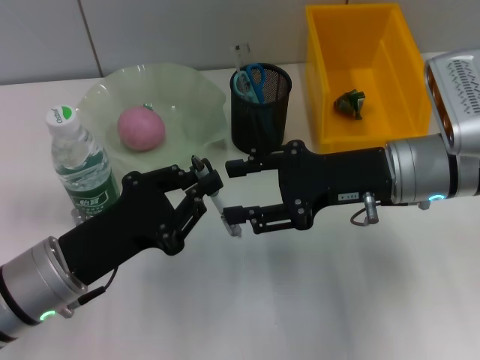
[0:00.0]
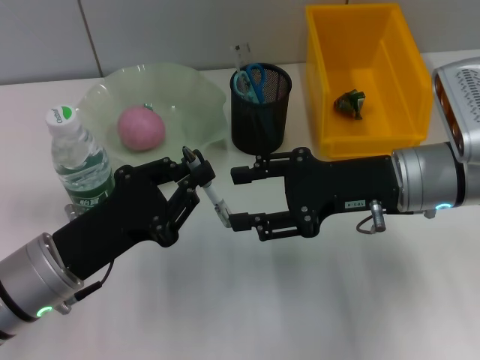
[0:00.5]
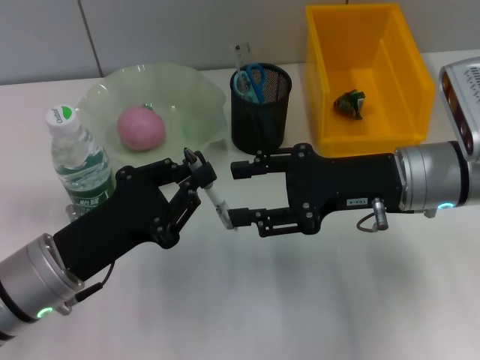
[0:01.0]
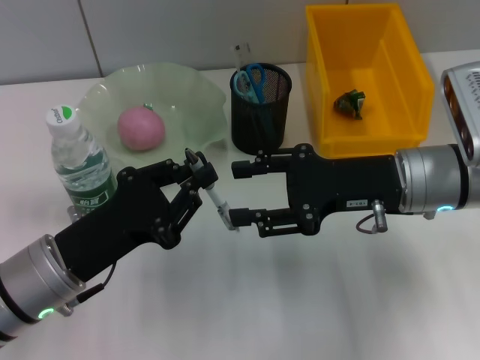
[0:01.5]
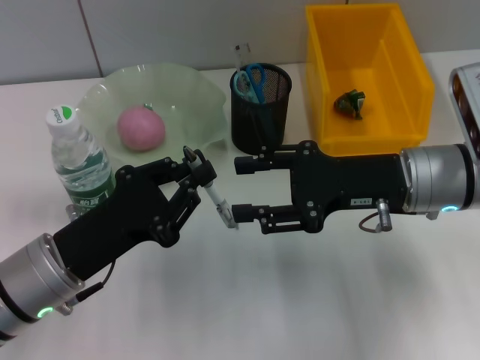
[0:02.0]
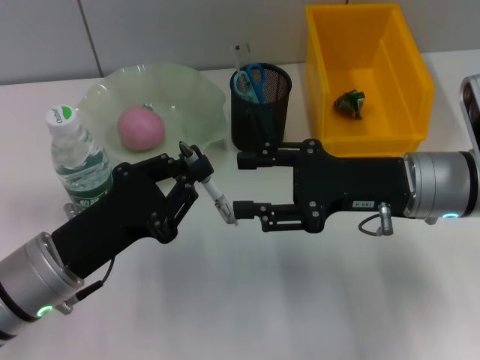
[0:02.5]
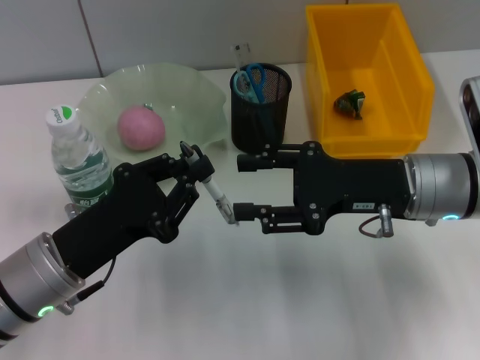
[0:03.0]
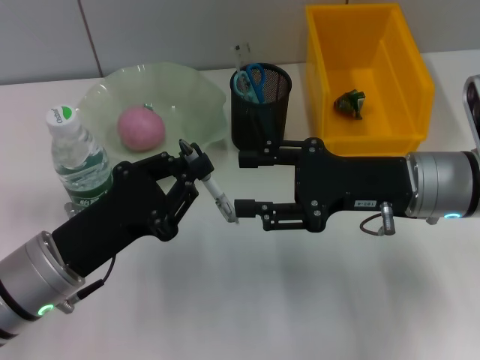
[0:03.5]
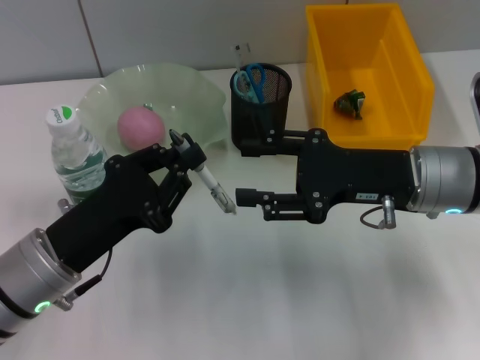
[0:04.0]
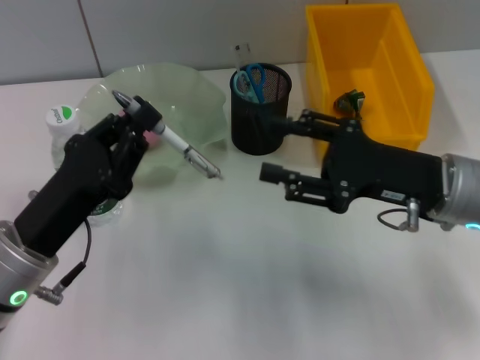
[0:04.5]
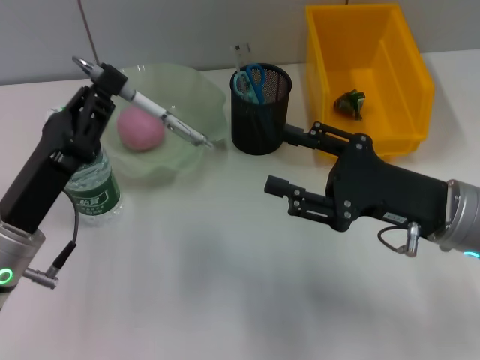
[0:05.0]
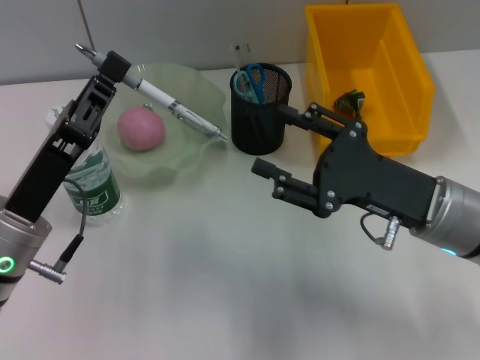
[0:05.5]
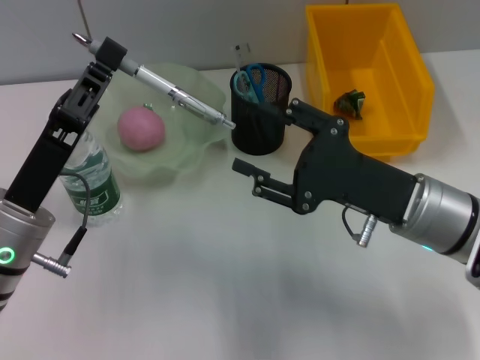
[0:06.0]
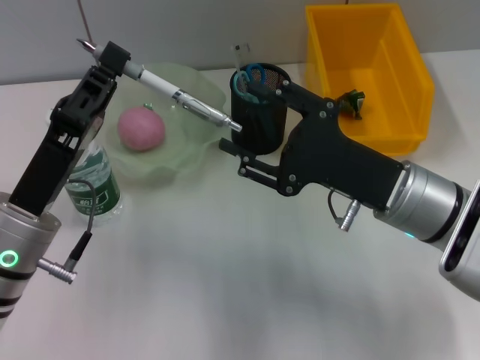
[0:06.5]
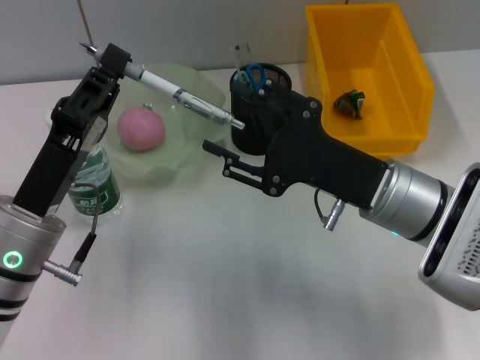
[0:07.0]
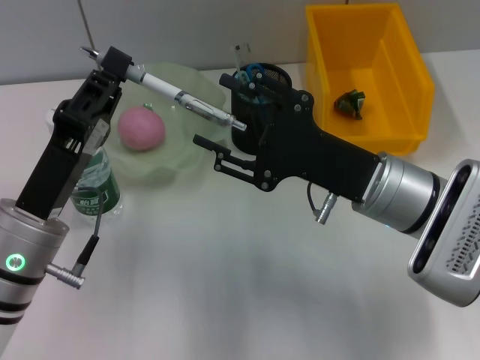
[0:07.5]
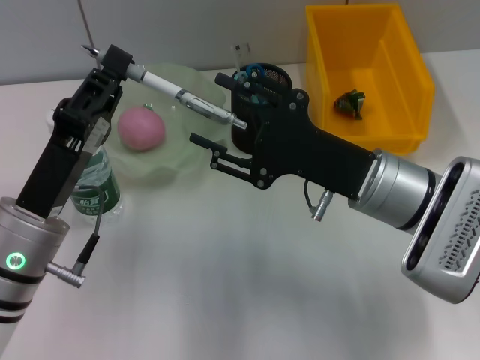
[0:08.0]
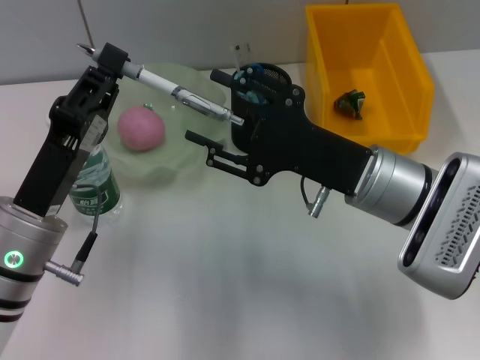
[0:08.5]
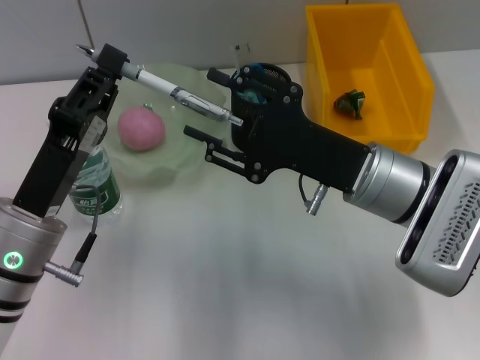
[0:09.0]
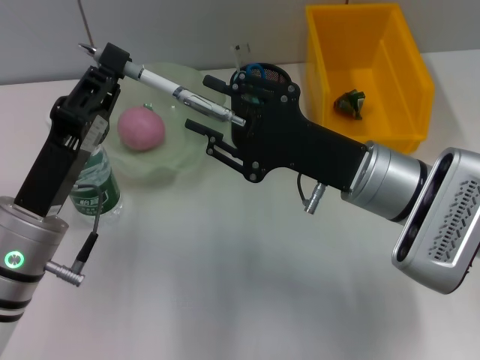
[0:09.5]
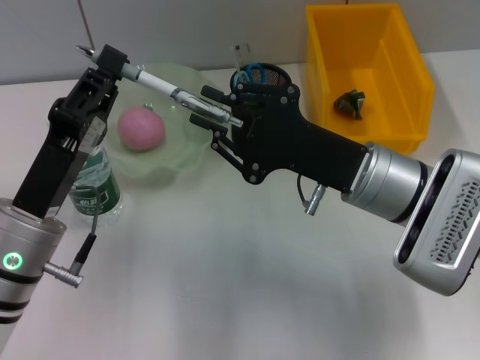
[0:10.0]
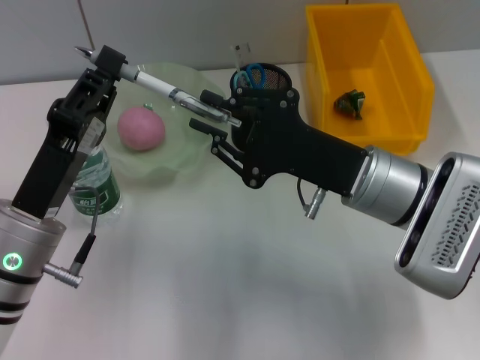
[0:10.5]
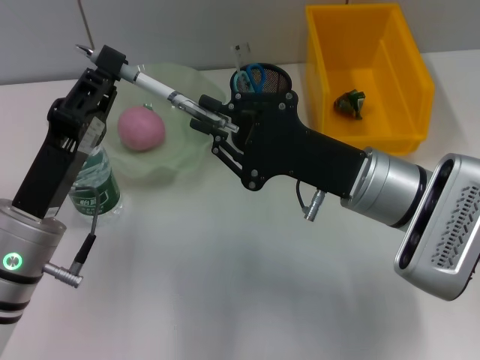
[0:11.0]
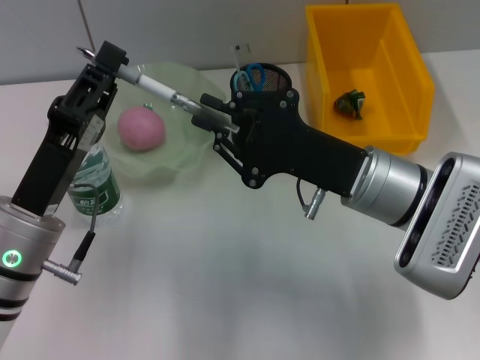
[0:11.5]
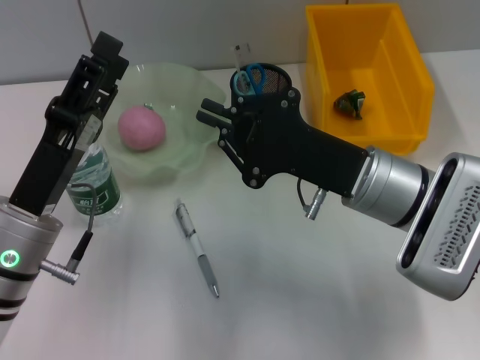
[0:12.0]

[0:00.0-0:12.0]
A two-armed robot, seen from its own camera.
0:00.0 to 0:04.0: The grippers make only small movements.
0:08.0 to 0:10.0: The right gripper closes.
0:10.0 to 0:12.0: The left gripper opens its fingers.

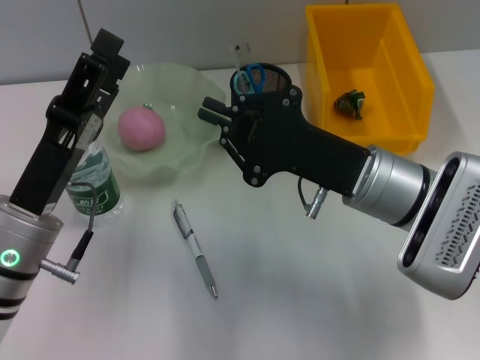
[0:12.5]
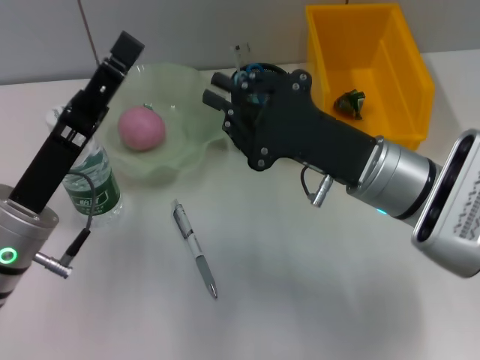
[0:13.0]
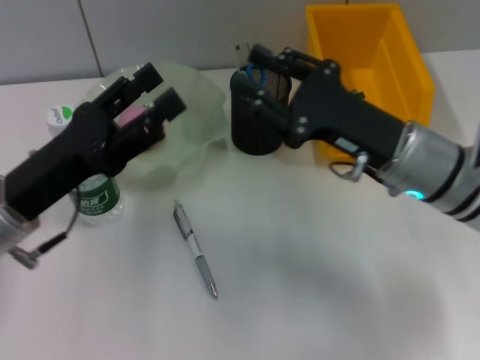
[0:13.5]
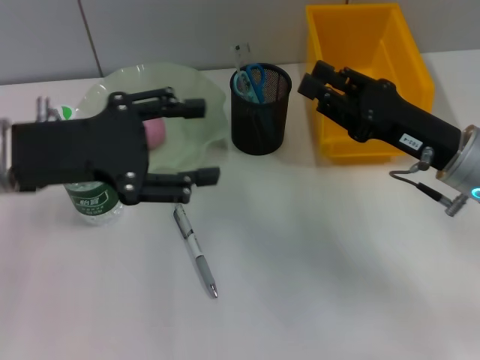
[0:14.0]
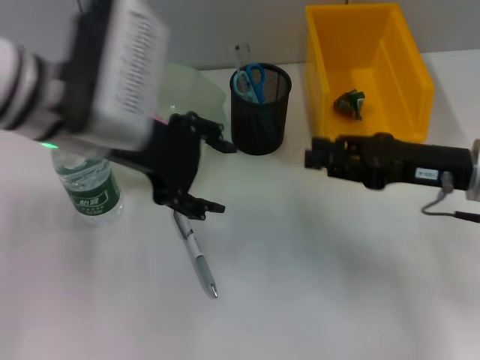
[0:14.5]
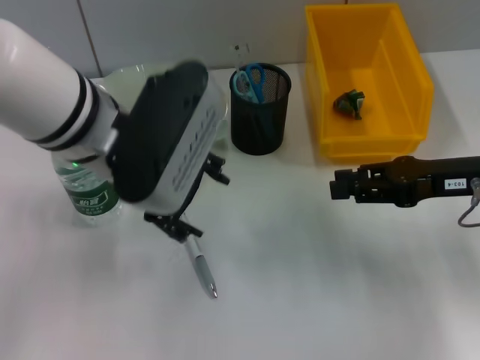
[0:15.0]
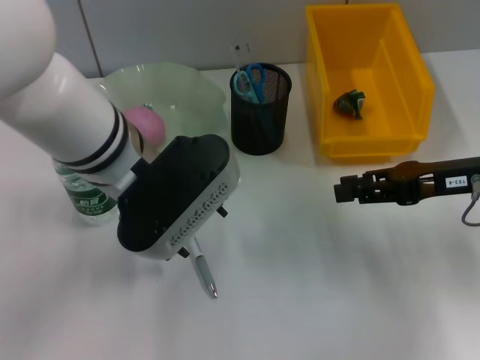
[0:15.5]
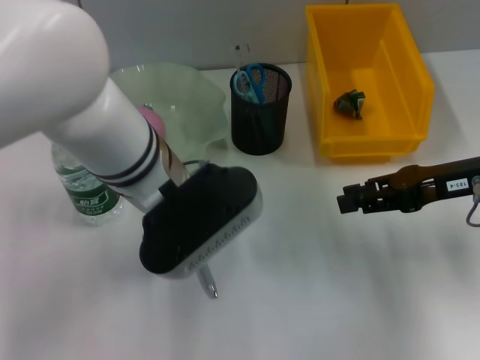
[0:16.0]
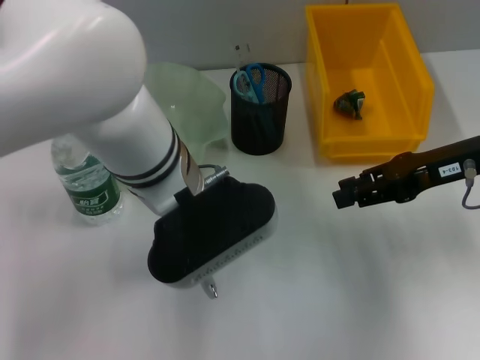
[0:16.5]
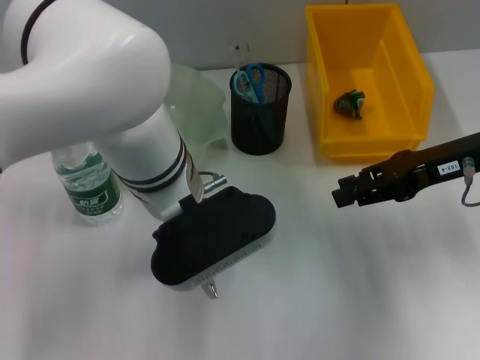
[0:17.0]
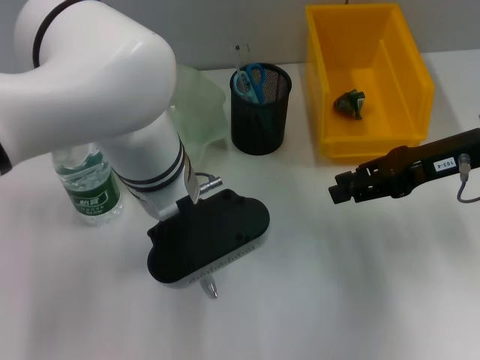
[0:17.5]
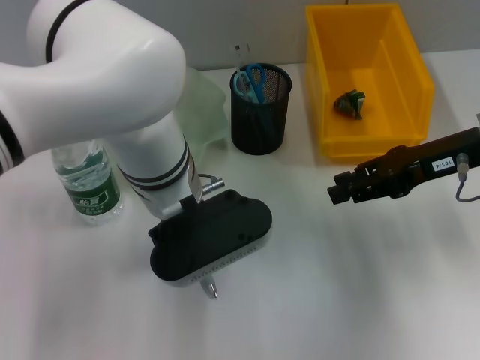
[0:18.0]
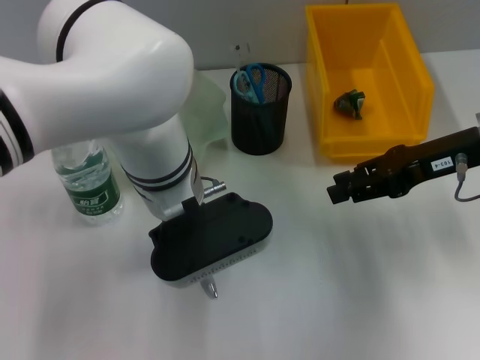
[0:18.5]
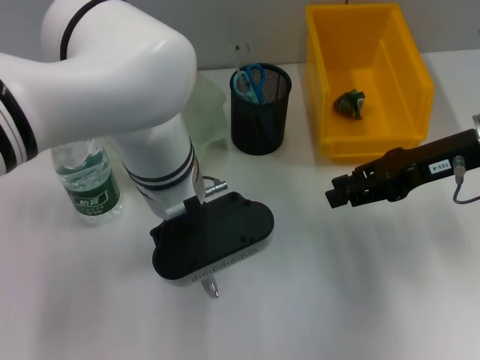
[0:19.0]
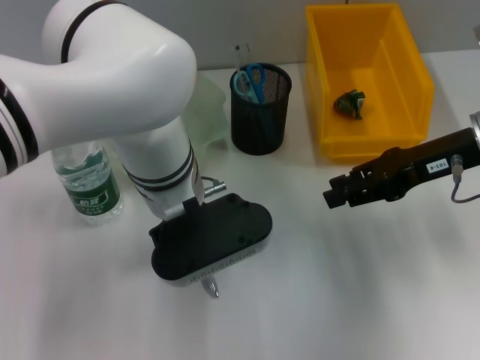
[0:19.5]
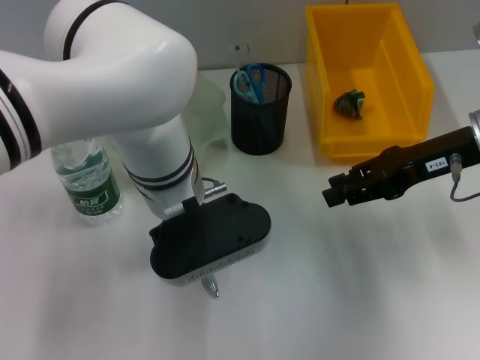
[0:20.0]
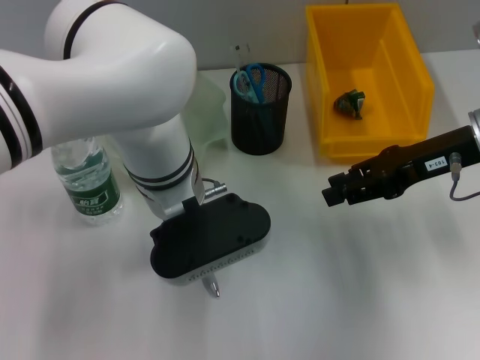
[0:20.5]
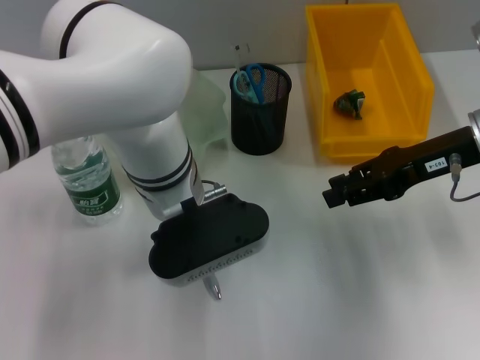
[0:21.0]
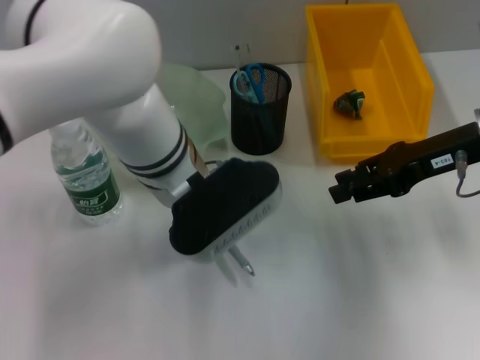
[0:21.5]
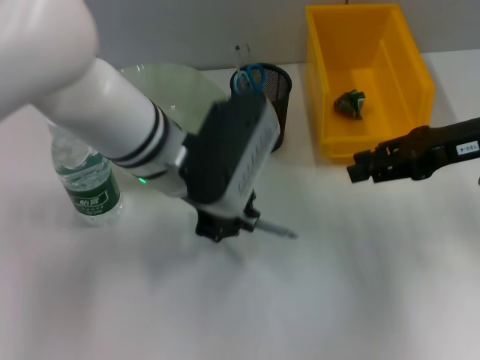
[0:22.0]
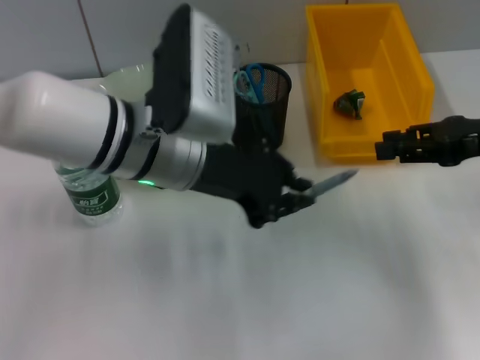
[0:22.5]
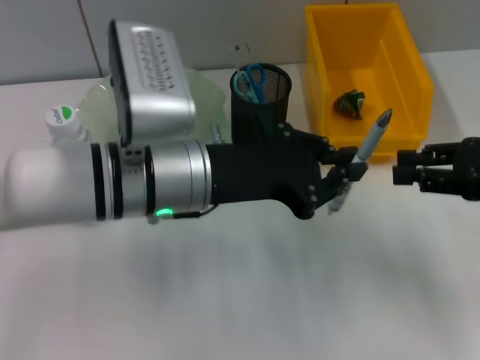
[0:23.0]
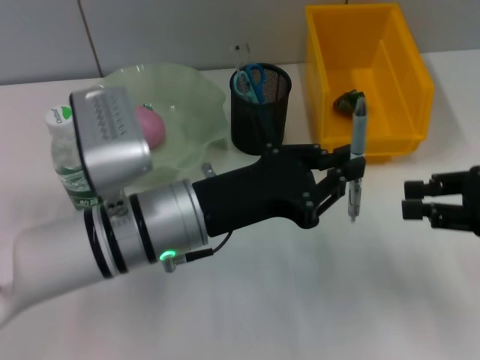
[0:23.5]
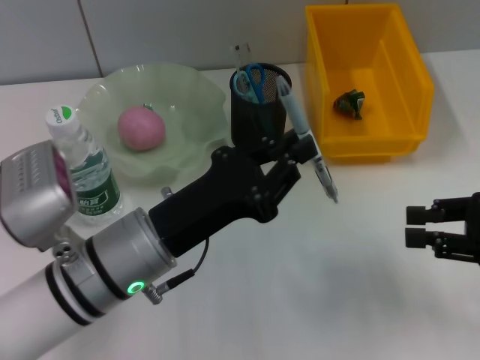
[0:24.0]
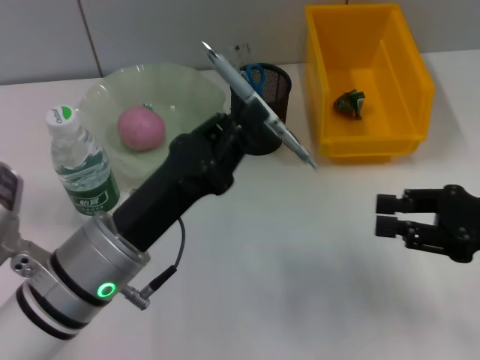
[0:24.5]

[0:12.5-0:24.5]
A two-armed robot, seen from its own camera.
Step, 0:12.5 to 0:20.0: Grab the gray spring-action pen with the left hand.
0:12.5 to 0:14.5: The right gripper shifts some 10 cm to the right, and opens its fingers, while the left gripper travels upward, forward and to the right by about 15 cm.
0:14.5 to 0:16.5: The left gripper heads to the right, covering about 5 cm.
0:16.5 to 0:18.5: The left gripper closes its fingers.
0:18.5 to 0:20.5: Both grippers stay about where they are.
0:20.5 to 0:22.5: The right gripper travels to the right by about 5 cm.
0:22.5 to 0:24.5: The right gripper is displaced backward and downward by roughly 10 cm. Meanwhile the left gripper is displaced backward, downward and to the left by roughly 15 cm.

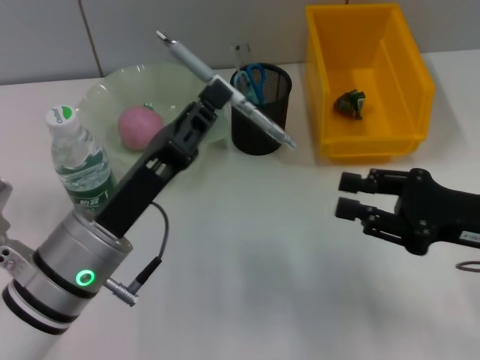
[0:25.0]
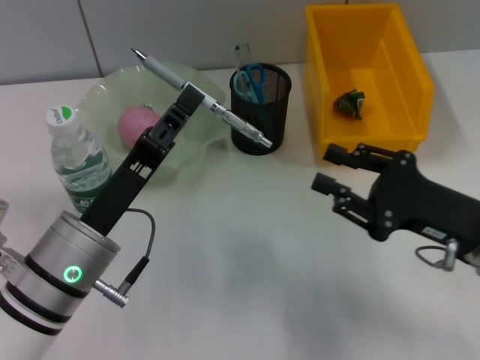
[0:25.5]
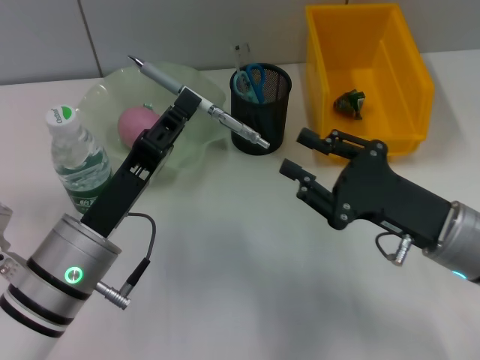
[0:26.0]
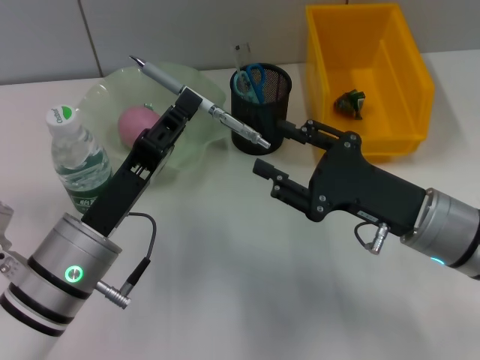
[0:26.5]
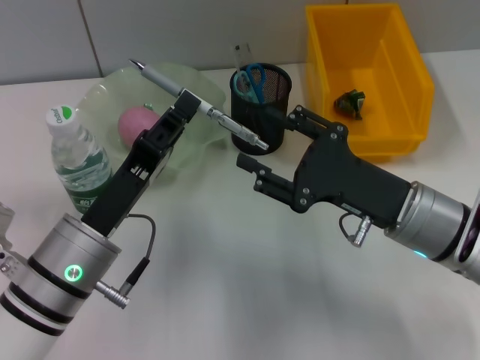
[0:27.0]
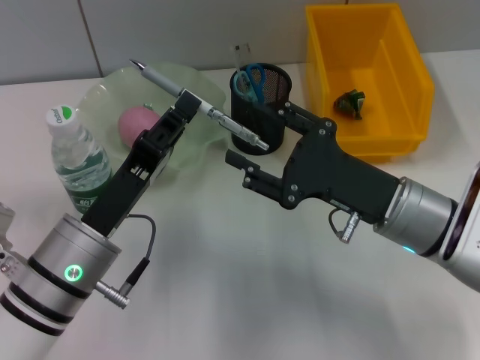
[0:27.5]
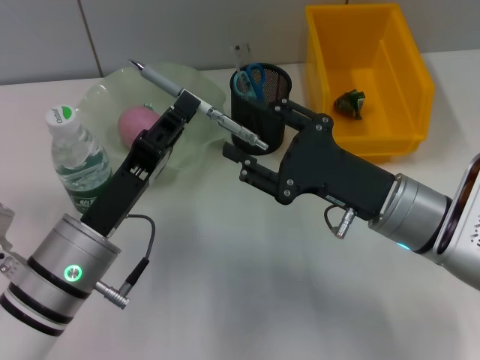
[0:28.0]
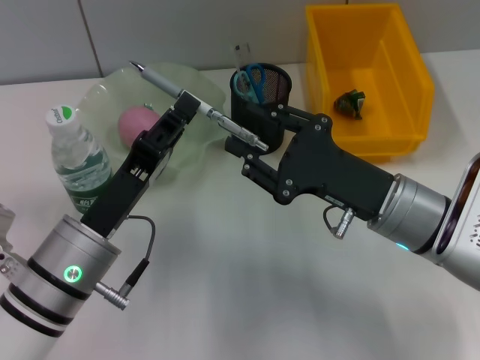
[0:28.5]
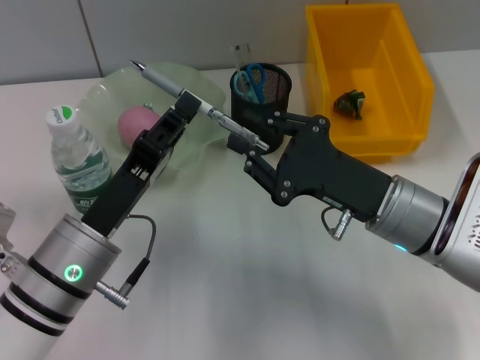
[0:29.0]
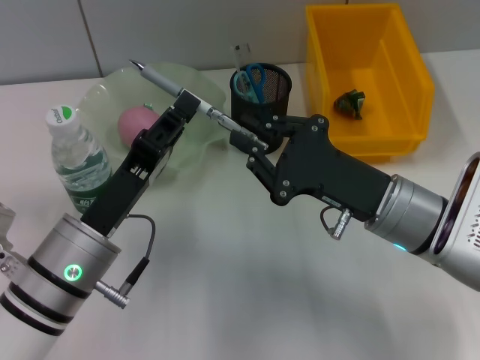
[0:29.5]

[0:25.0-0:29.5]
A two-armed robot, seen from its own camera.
0:25.0 to 0:27.0: The right gripper heads to the left, covering roughly 10 cm.
0:27.0 to 0:29.5: The right gripper closes up.
